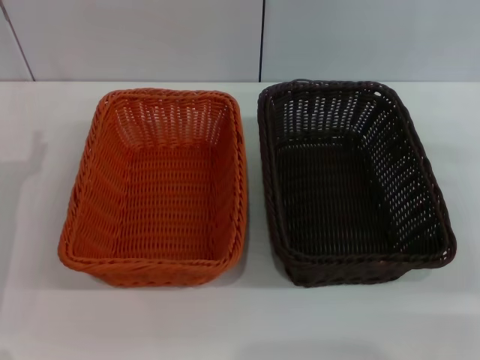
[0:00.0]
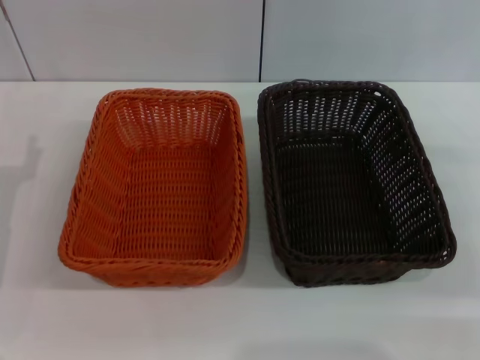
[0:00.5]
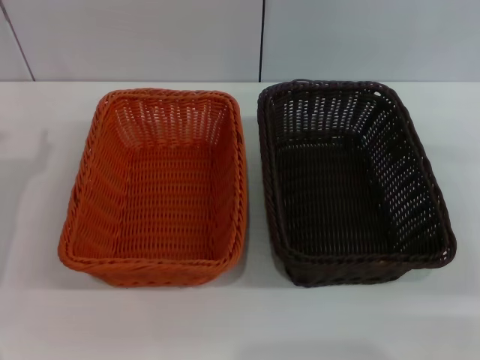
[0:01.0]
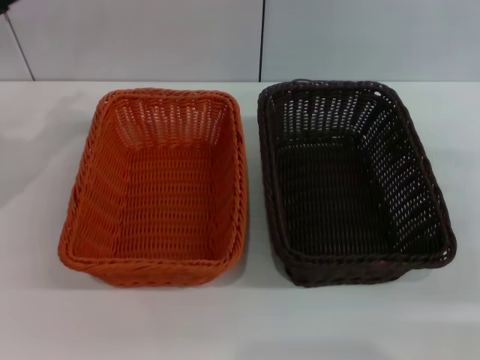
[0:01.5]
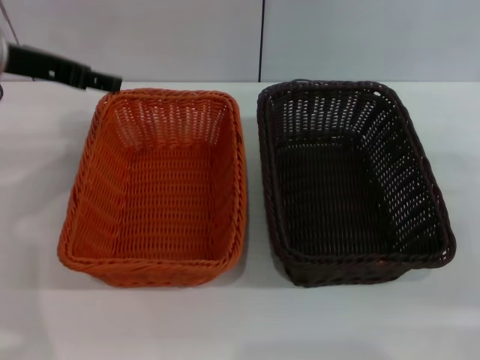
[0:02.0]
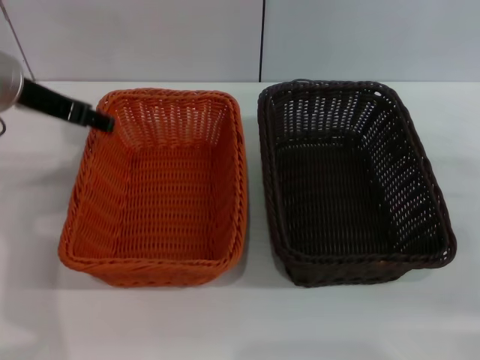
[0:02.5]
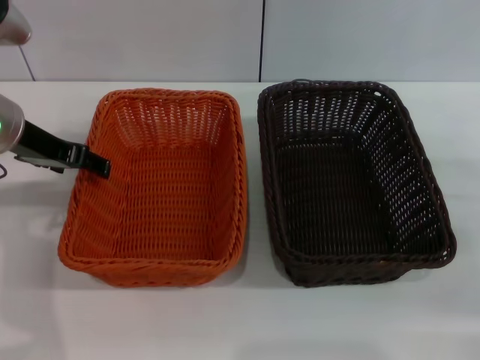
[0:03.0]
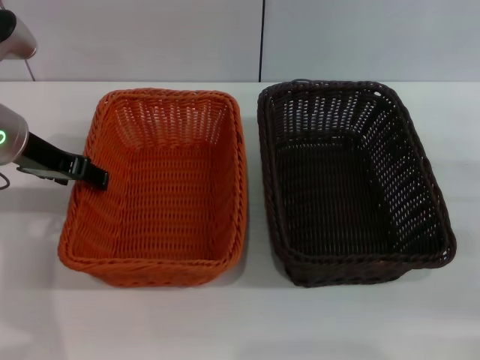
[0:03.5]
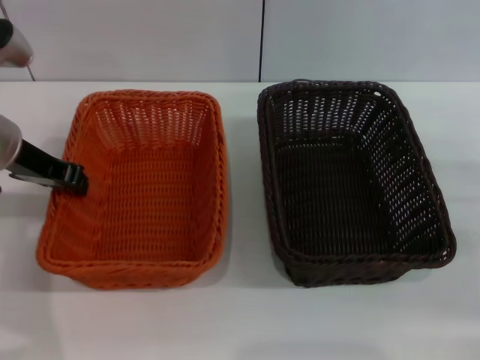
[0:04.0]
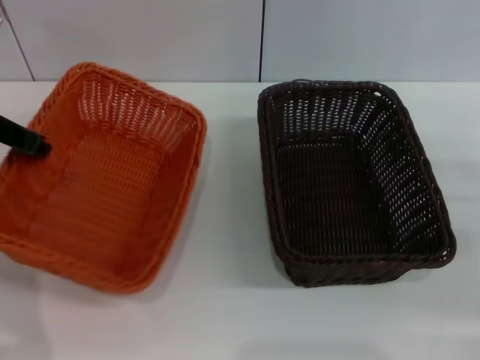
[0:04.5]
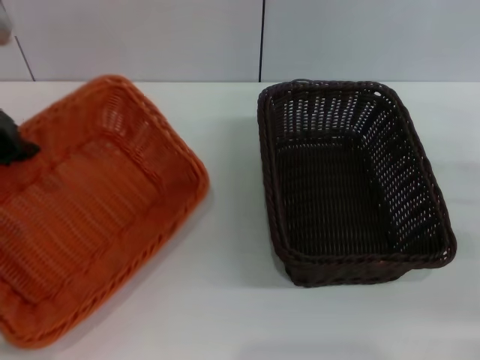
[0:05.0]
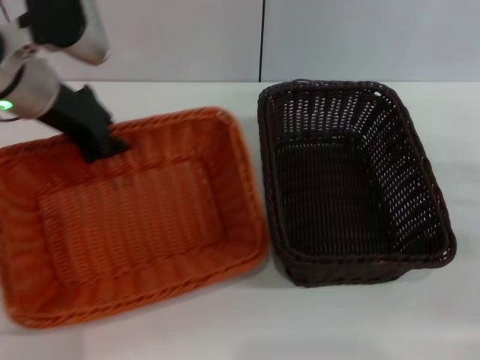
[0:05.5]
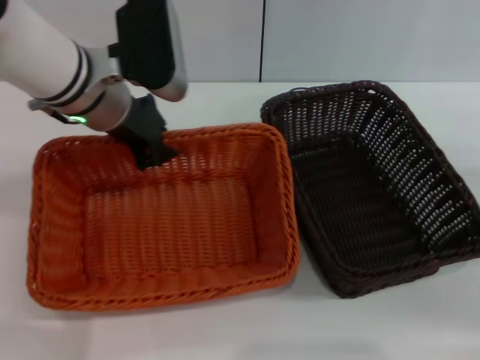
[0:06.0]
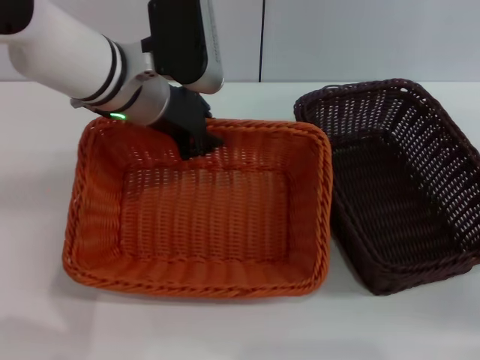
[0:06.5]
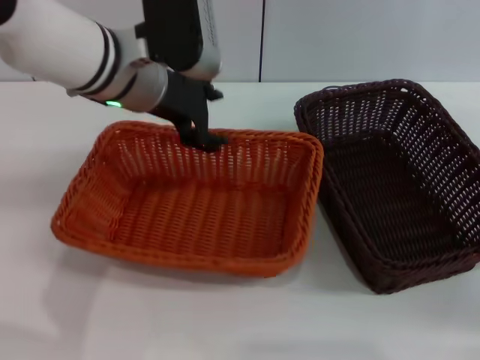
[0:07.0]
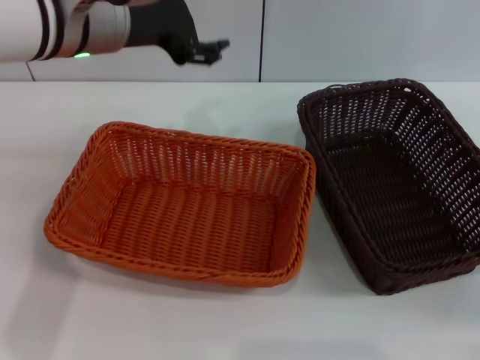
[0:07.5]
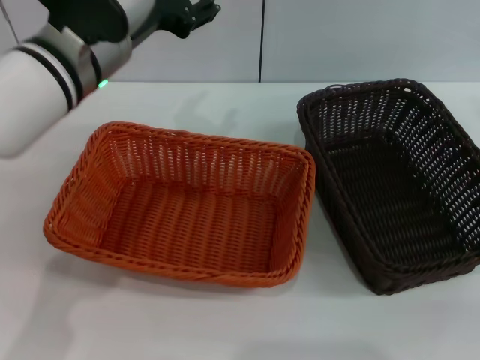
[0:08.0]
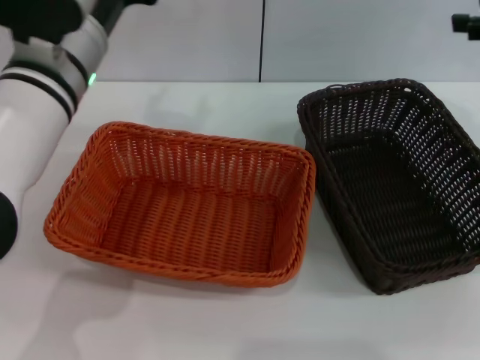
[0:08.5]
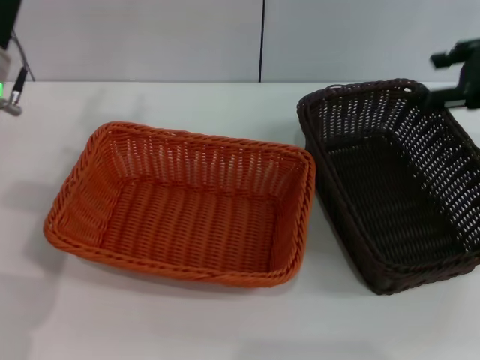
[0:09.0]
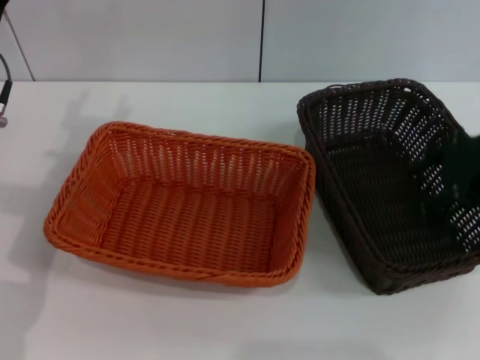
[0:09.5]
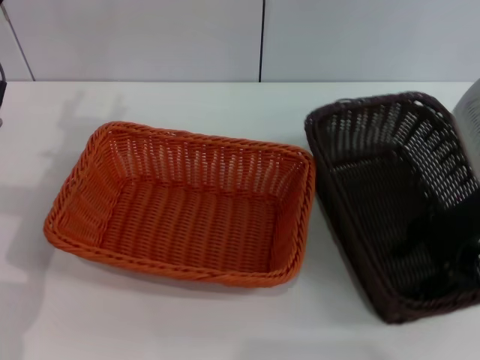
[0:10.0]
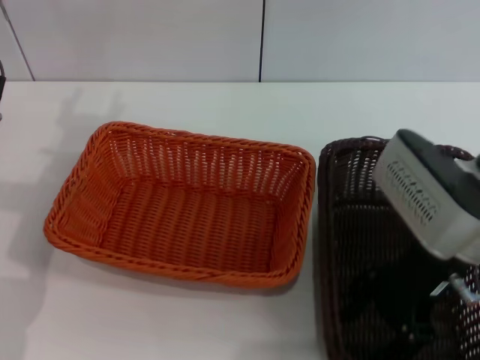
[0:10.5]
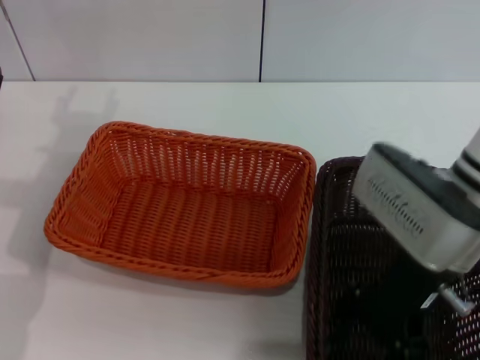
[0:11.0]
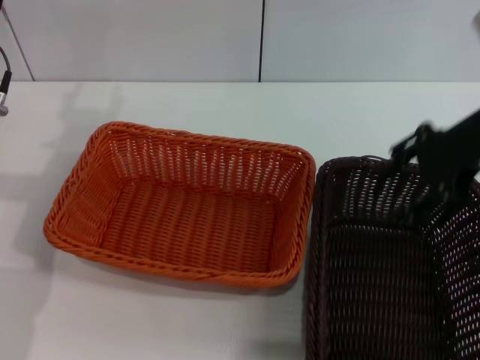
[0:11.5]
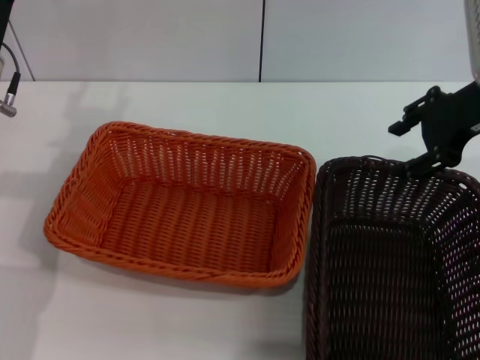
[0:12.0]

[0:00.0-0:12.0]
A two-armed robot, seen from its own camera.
Step, 0:00.0 to 0:04.0: Pick up the light basket with the left gripper.
Step, 0:04.5 to 0:07.0: Place the light basket in the center of view with the left gripper.
0:00.0 to 0:02.0: The left gripper heads upward and forward, covering approximately 20 cm.
0:02.0 to 0:04.0: The left gripper heads downward, covering some 5 cm, and closes.
0:04.0 to 0:06.0: The left gripper travels to the right by some 10 cm, and closes its fingers.
0:06.0 to 0:08.0: The left gripper opens its fingers. The right gripper shifts some 15 cm upward and forward.
0:08.0 to 0:10.0: The left gripper is displaced to the left and downward by approximately 15 cm, while the right gripper is displaced to the left by about 15 cm.
0:10.0 to 0:12.0: The right gripper shifts about 10 cm forward and upward.

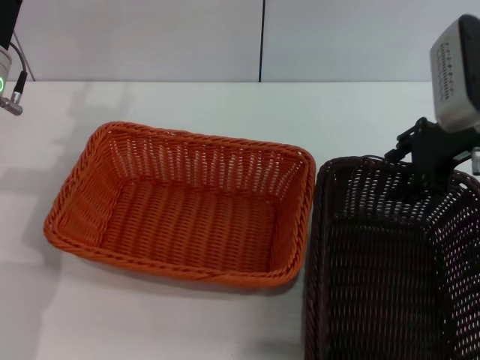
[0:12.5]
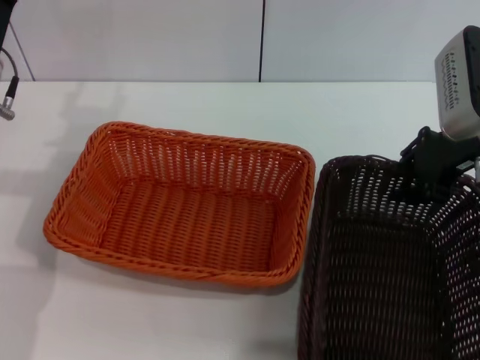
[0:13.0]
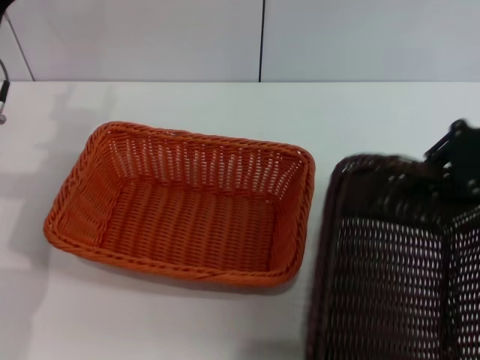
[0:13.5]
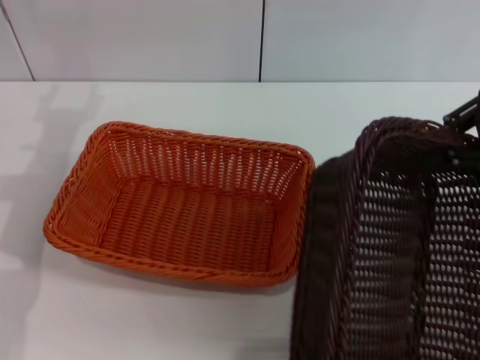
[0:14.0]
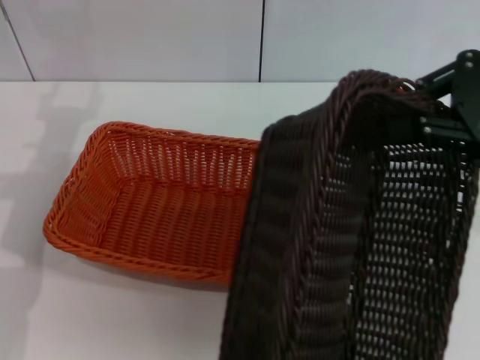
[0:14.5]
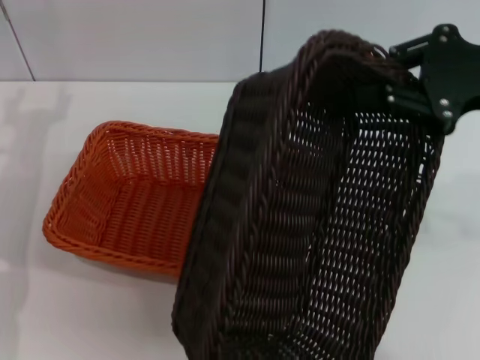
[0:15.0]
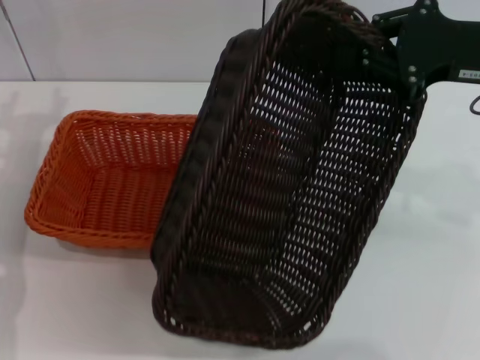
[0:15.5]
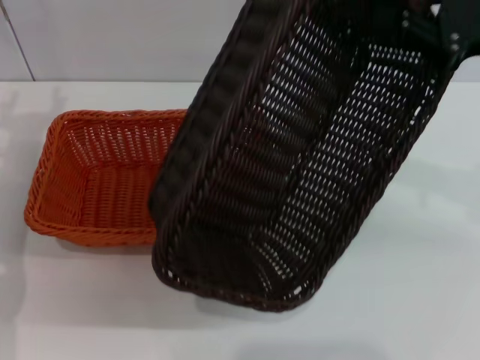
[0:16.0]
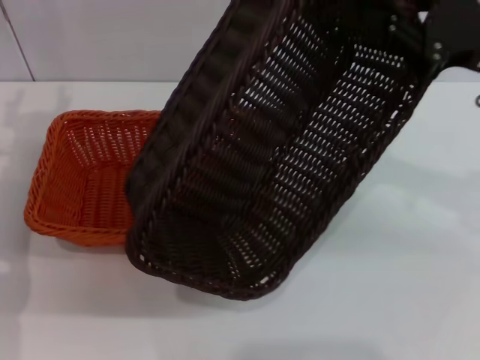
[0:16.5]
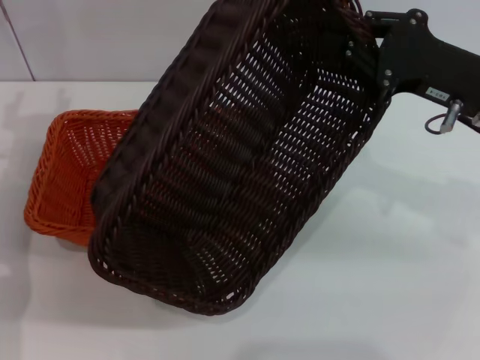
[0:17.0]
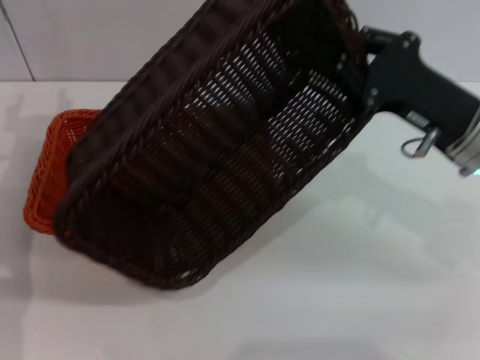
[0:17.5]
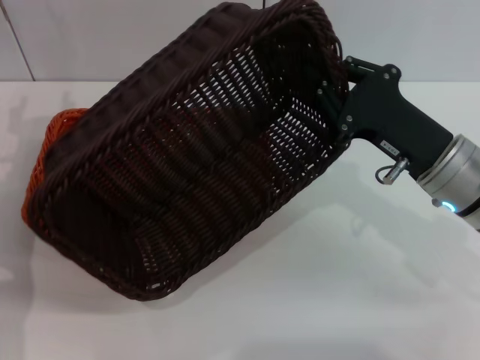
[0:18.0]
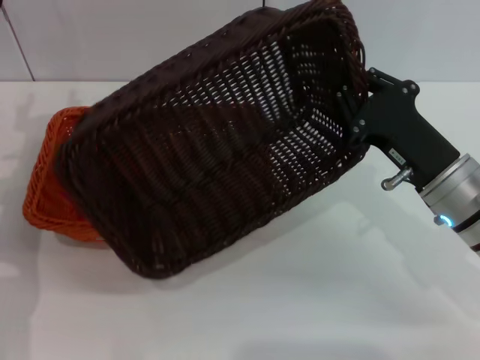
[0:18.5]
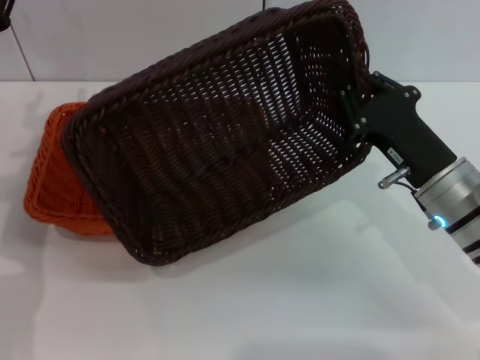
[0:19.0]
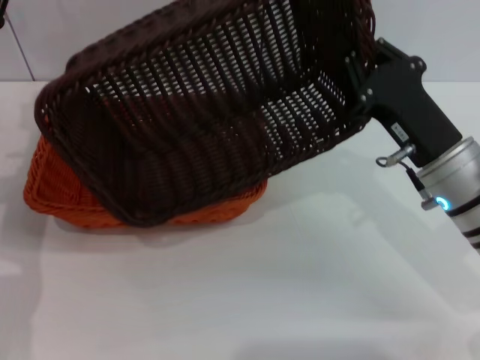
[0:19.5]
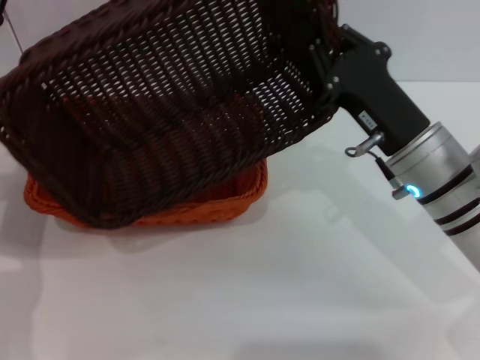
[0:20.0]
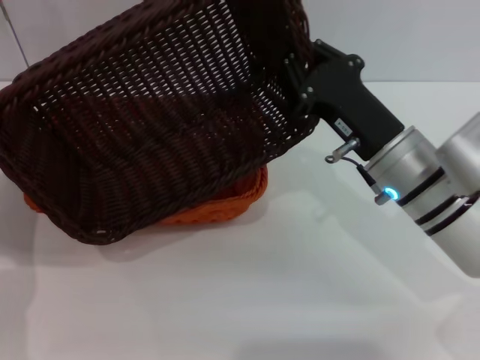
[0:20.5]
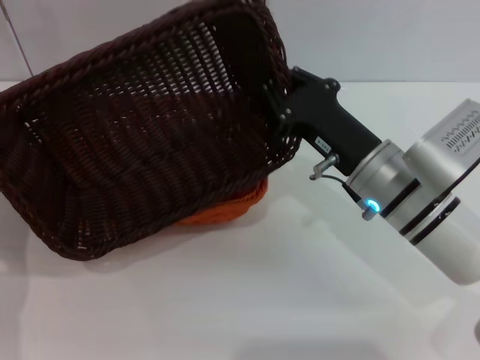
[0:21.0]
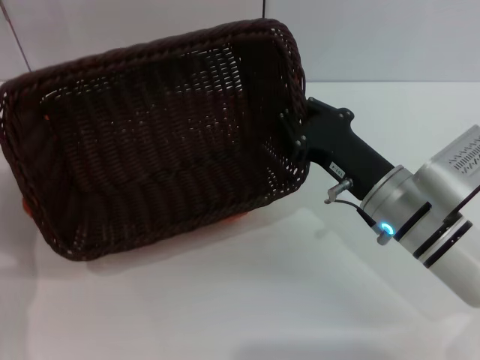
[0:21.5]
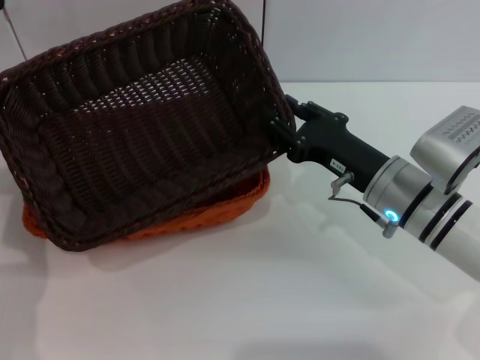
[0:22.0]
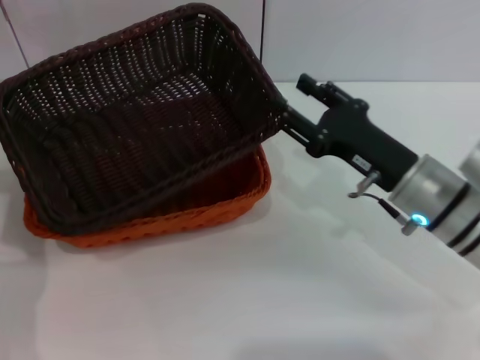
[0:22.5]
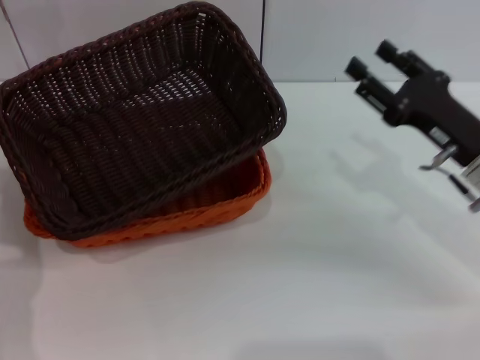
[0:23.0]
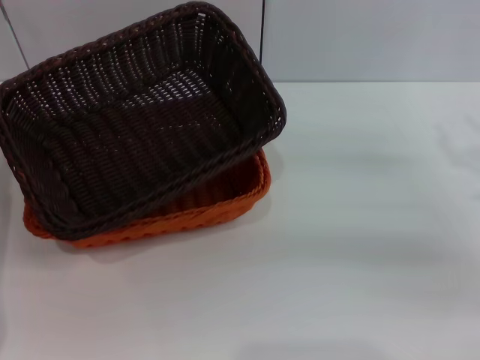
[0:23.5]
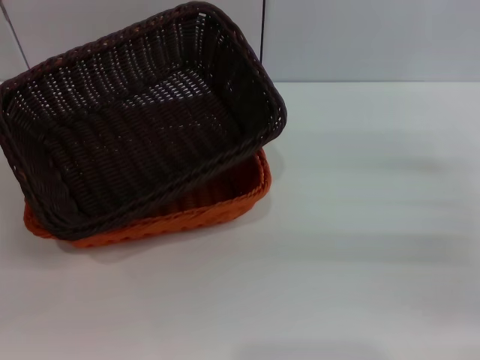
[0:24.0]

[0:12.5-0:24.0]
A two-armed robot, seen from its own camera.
Step, 0:14.0 to 0:22.5: Place the dark basket on the light basket with the right gripper.
0:12.5 to 0:14.5: The right gripper travels upward and backward by approximately 10 cm, and closes up.
0:16.5 to 0:18.5: The right gripper travels downward and to the left by about 15 cm.
0:22.0 to 0:24.0: The left gripper shifts roughly 15 cm backward, to the left and downward; the right gripper moves to the right, some 20 cm, and opens up.
